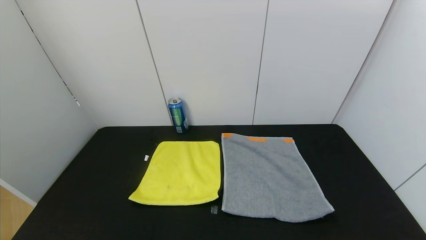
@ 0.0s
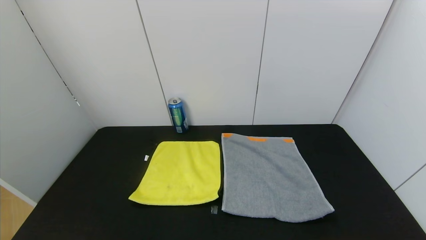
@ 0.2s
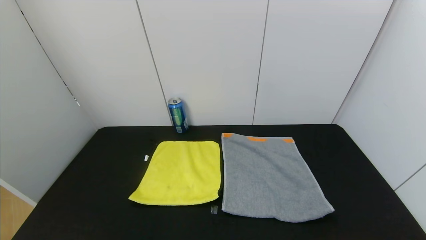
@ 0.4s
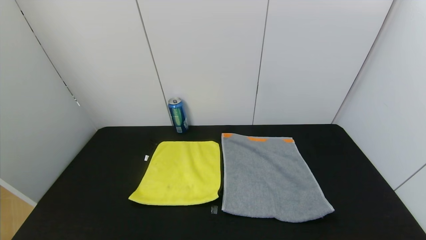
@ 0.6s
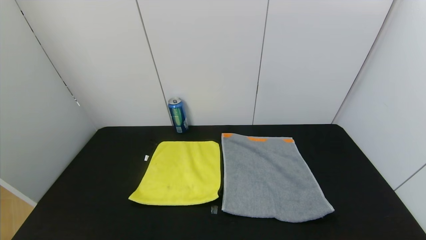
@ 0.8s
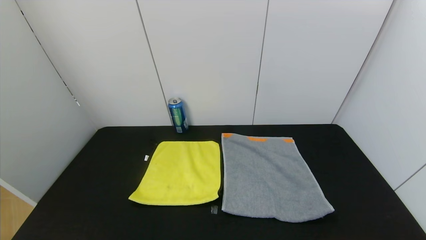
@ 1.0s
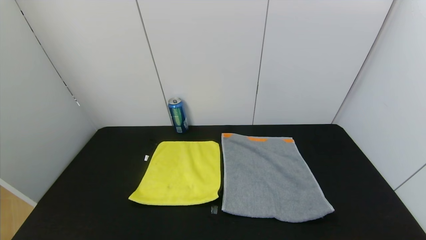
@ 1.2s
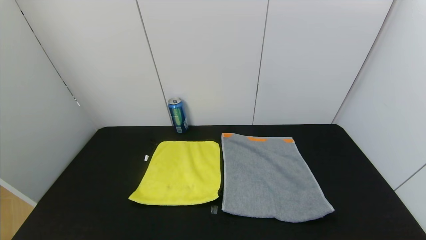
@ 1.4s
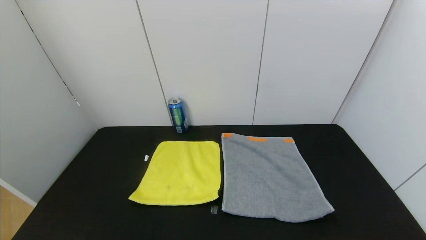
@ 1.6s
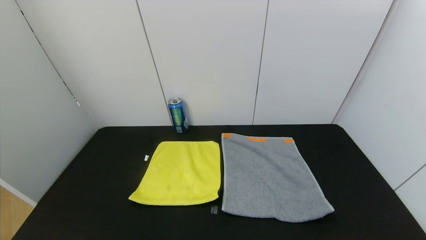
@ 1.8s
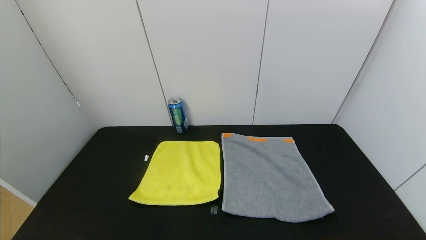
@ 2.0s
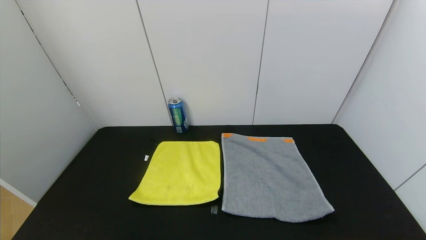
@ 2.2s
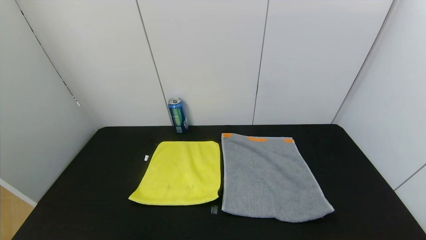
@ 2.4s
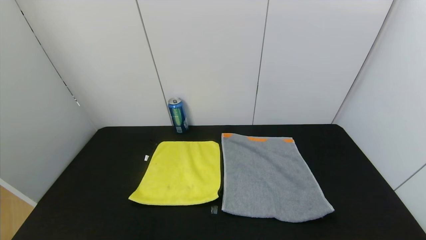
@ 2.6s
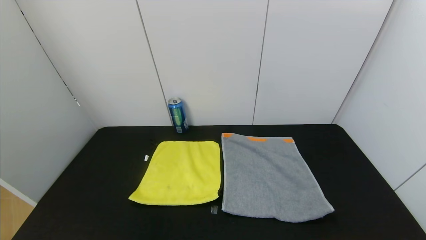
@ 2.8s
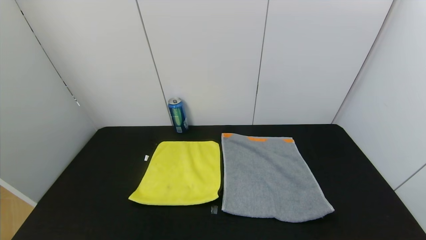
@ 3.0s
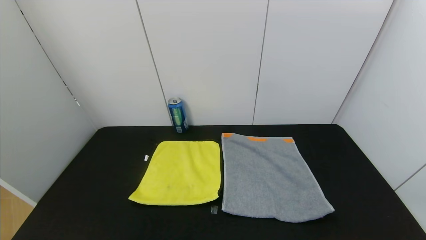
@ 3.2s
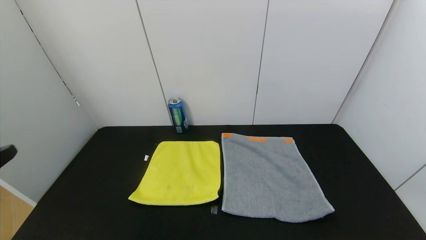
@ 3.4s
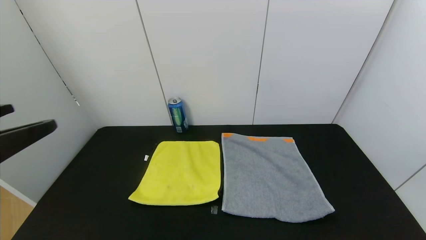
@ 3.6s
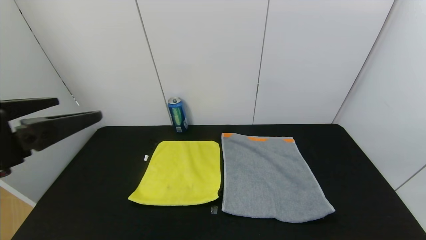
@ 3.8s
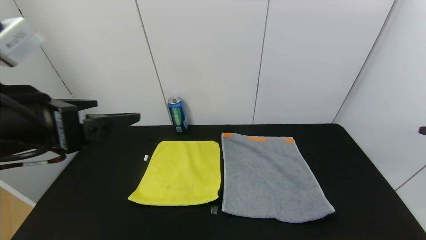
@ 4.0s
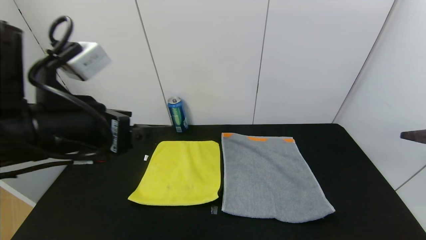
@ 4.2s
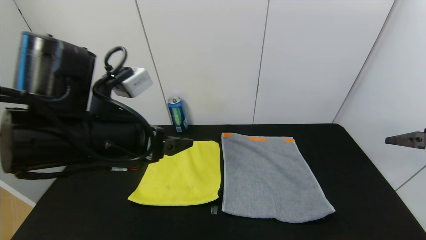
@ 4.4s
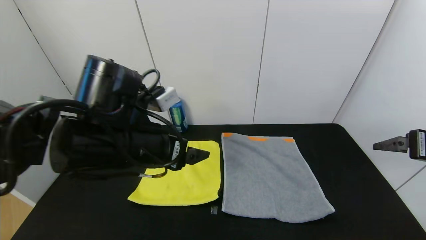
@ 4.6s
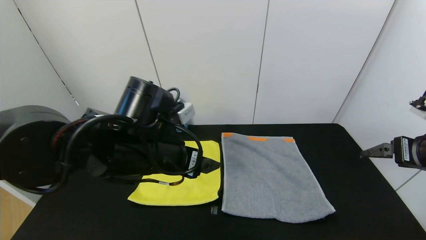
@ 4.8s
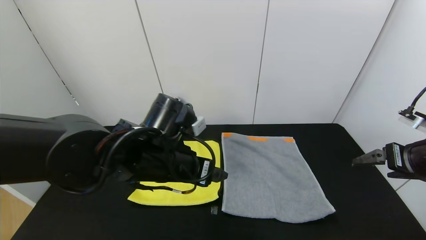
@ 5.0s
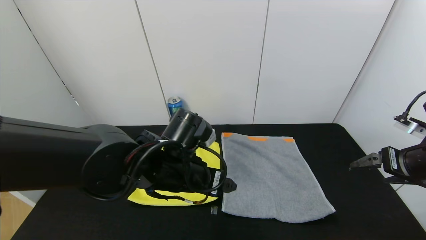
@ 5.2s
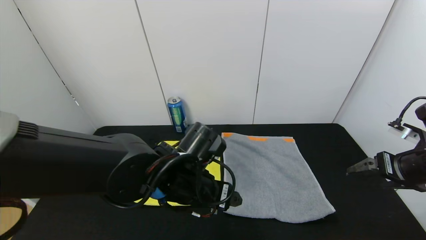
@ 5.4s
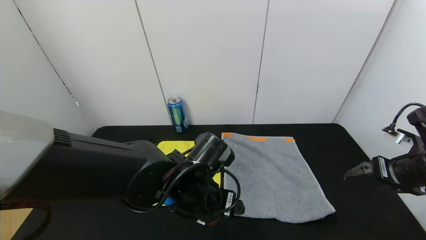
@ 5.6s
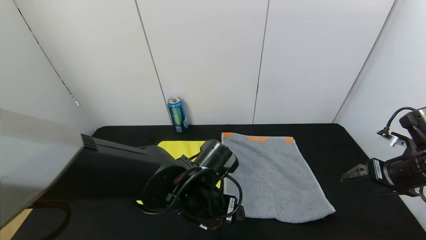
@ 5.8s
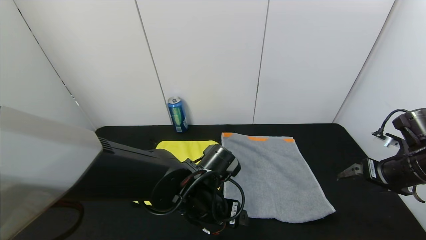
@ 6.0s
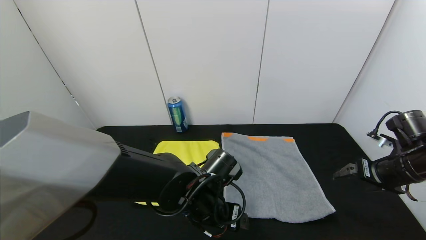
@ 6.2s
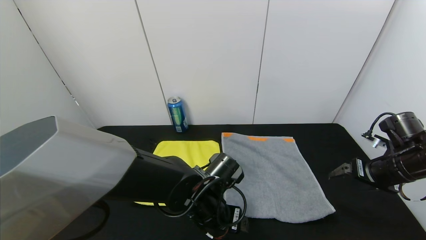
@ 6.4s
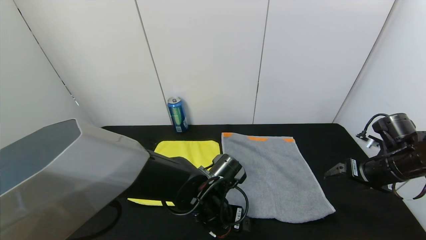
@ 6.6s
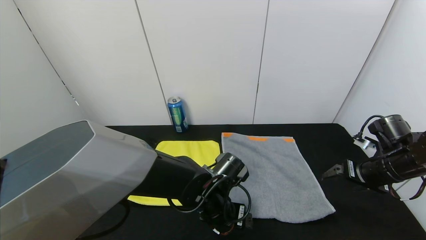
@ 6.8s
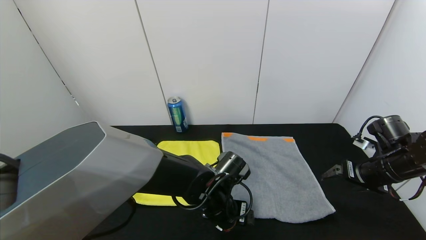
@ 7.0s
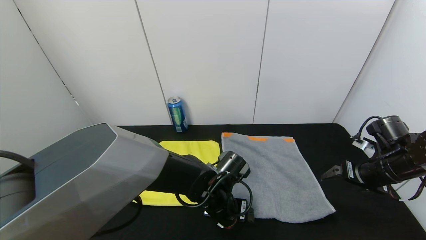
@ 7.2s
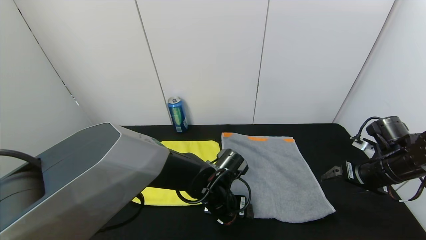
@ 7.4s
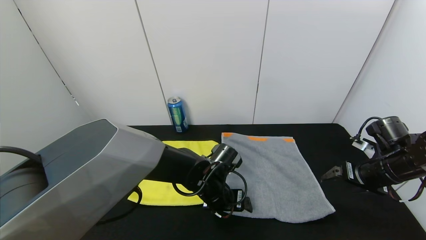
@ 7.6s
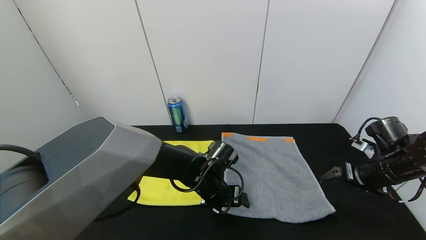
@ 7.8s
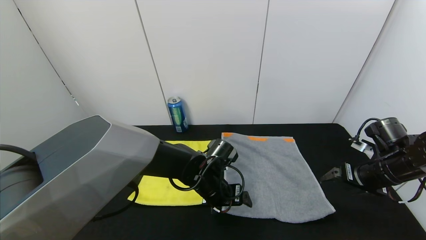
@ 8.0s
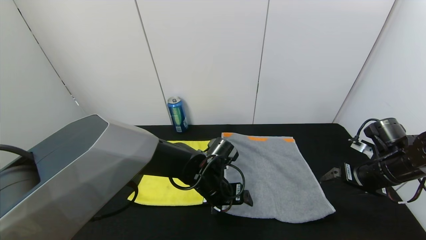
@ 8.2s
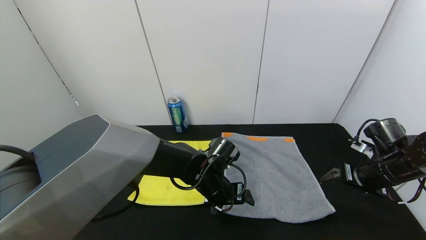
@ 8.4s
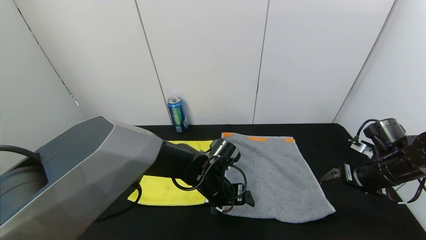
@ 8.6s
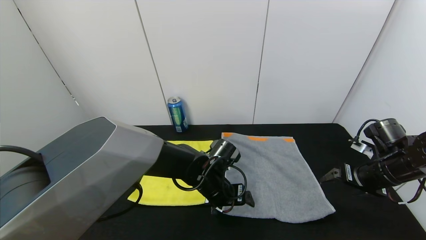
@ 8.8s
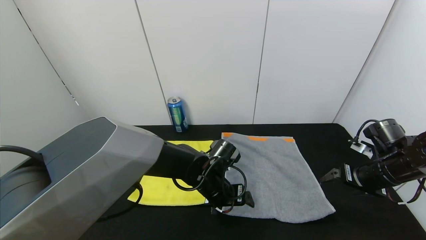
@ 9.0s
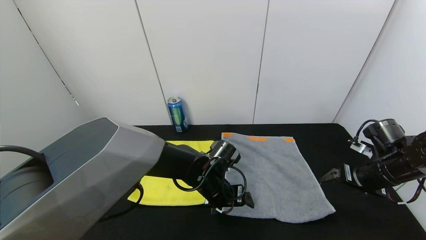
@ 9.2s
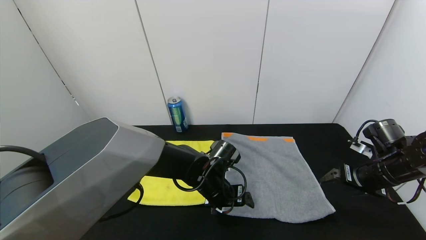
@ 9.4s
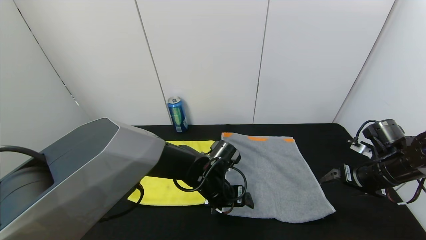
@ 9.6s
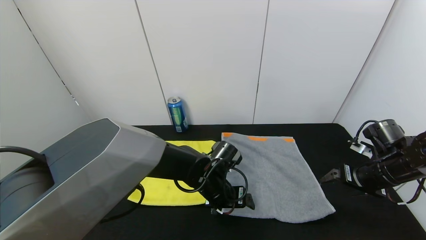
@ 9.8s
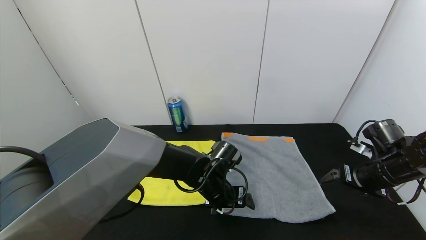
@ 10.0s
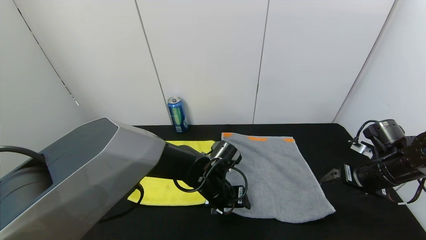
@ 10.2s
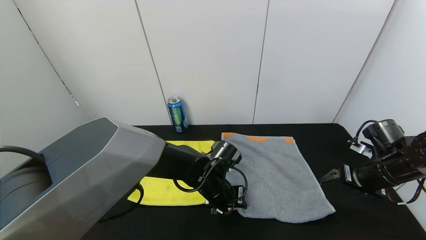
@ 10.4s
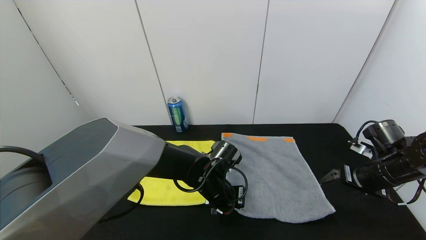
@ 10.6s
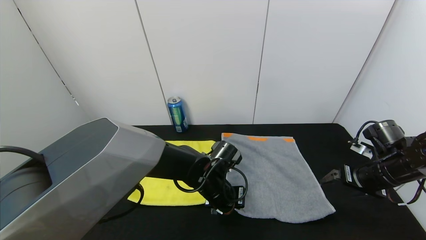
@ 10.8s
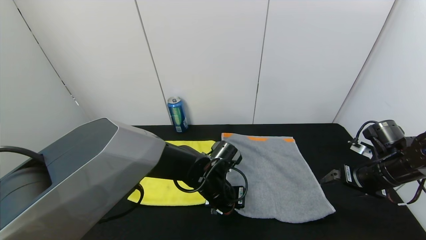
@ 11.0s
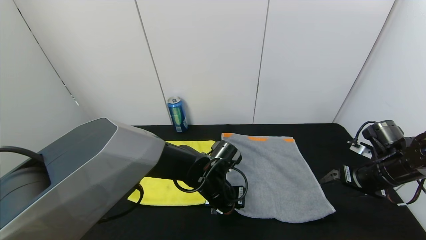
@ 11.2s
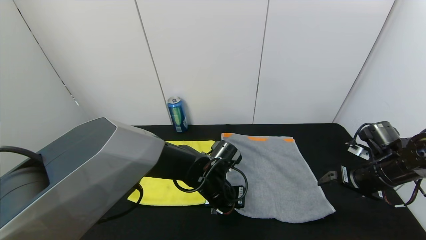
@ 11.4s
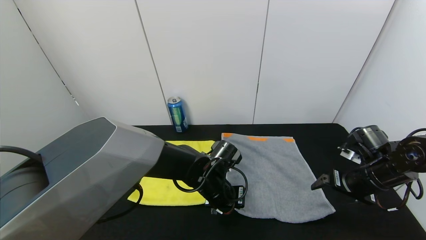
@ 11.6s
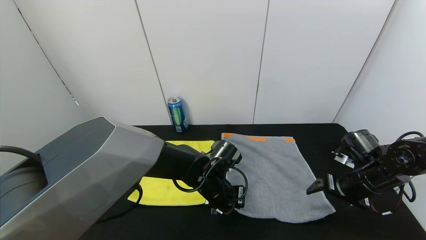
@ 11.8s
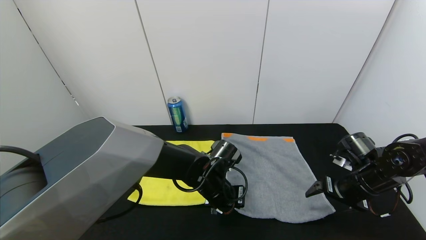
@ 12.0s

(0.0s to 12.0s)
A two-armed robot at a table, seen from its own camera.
Task of the whole recording: Use the gripper to fold the yellow towel and grey towel in half twice,then put the yellow towel on the grey towel.
0.0s - 1.6s: Both grippers stay about where they are.
3.0s - 4.4s: The right gripper is displaced forward by roughly 20 cm, while the left gripper moves forward and to the right, some 25 cm.
4.4s - 6.0s: The right gripper goes some 15 cm downward and forward. Meanwhile the left gripper heads downward and to the right, covering about 20 cm.
6.0s - 7.6s: The left gripper travels forward by approximately 5 cm.
7.6s - 9.0s: The two grippers keep their place.
9.0s - 10.4s: The left gripper closes.
10.4s - 12.0s: The left gripper closes.

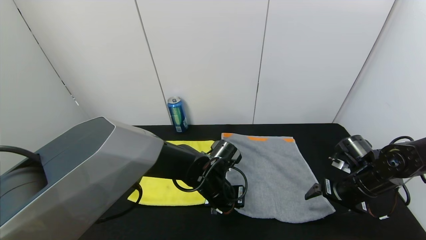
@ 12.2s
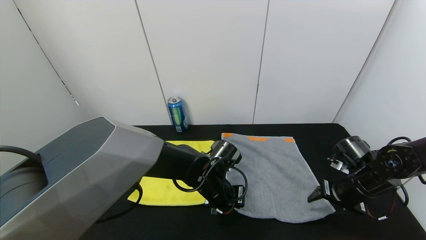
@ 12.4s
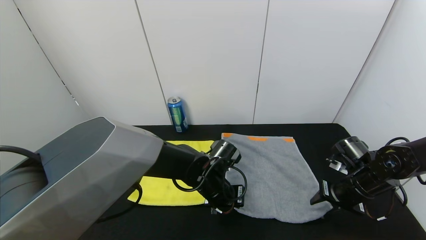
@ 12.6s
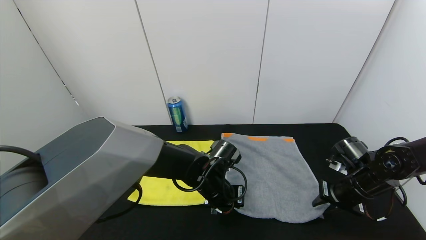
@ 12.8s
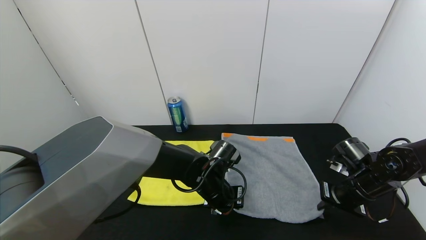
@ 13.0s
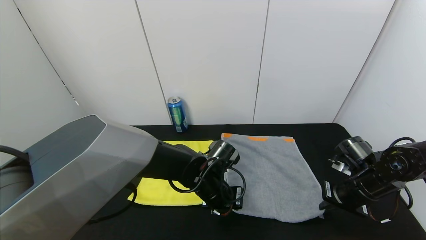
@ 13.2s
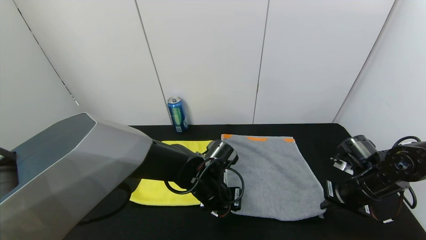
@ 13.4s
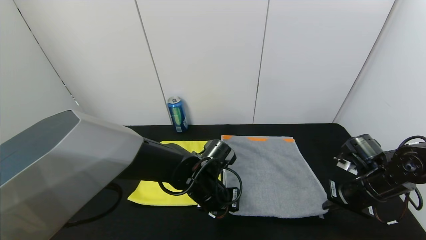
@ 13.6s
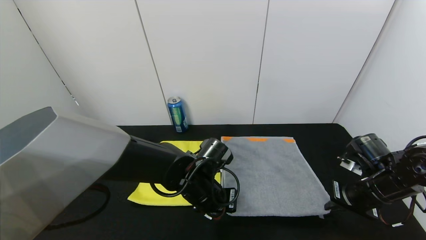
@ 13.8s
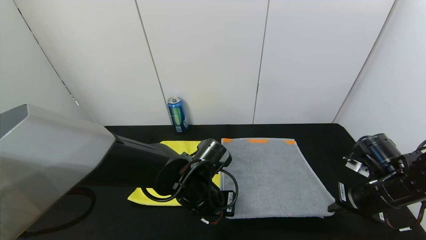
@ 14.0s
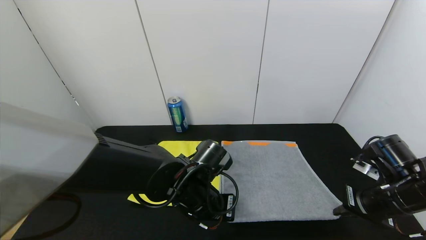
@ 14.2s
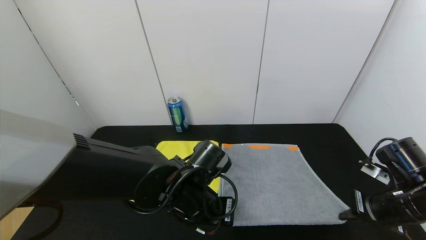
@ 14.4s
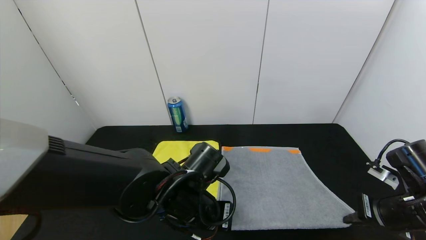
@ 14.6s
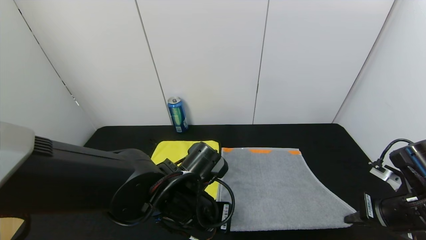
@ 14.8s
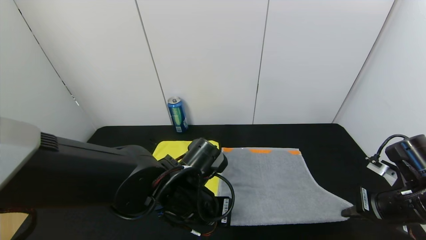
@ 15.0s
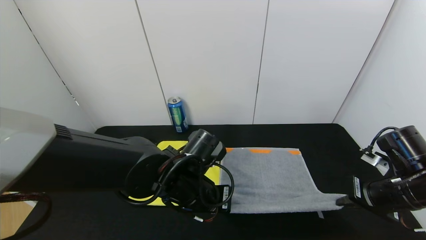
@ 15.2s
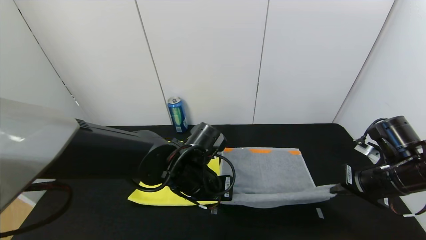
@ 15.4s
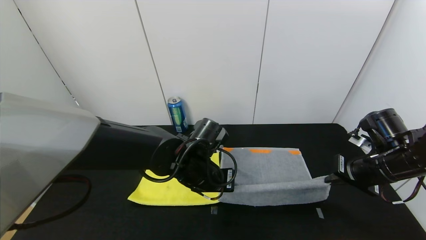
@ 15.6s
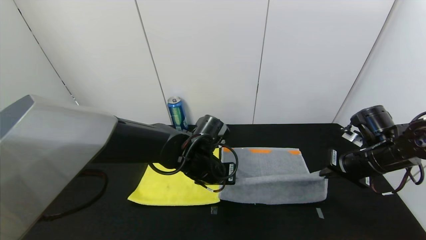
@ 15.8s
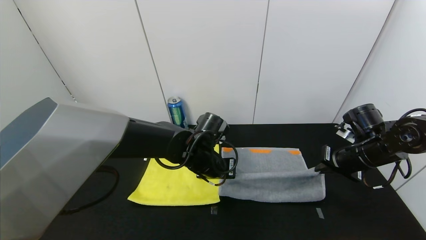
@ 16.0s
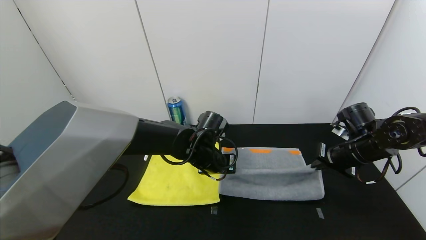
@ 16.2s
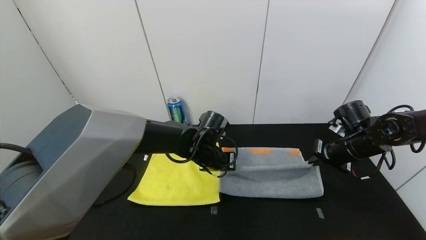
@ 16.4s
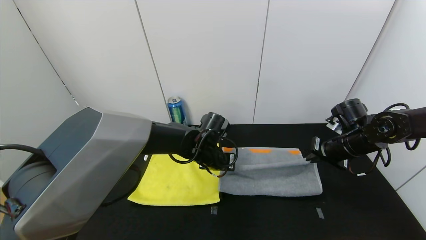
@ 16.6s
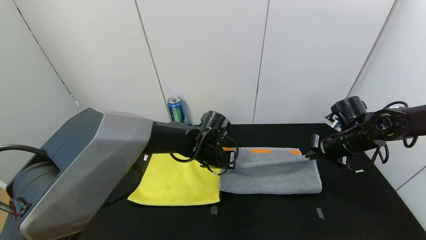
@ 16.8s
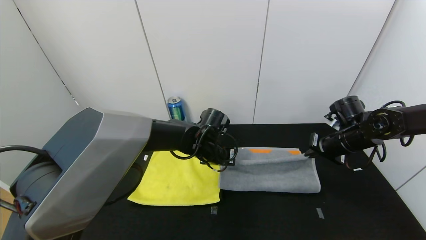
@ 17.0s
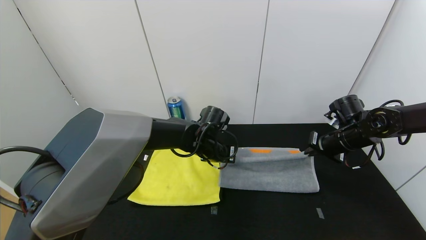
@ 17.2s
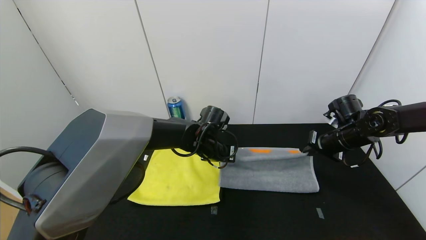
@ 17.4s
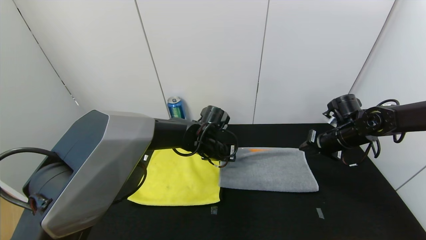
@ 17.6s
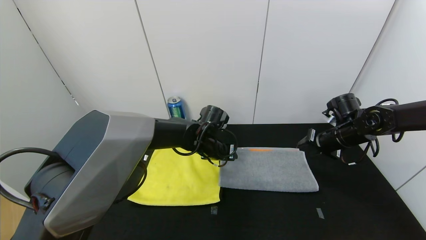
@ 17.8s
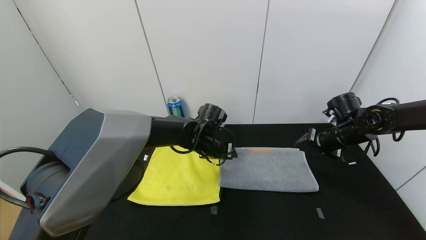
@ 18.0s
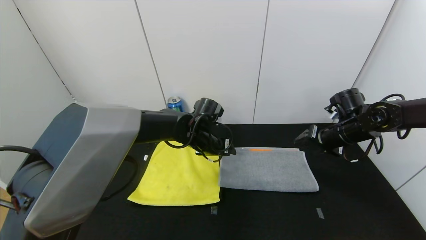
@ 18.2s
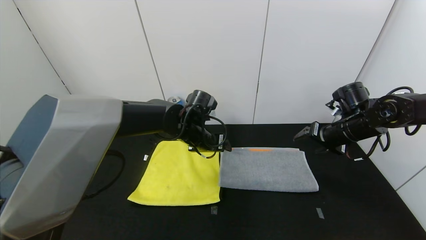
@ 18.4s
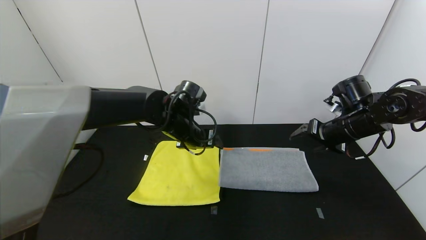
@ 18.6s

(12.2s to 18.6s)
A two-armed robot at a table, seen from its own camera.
Task of the whole recording: Use the gripper to fold the yellow towel and grey towel in half twice,then put the yellow towel on the grey towel.
Step, 12.2s - 18.2s: Fold the gray towel upwards with the left gripper.
Step, 12.2s - 18.2s: Fold the gray towel upwards with the right gripper.
12.2s - 13.8s: The right gripper closes.
15.4s - 17.0s: The two grippers go approximately 10 cm forward.
17.0s - 18.6s: The left gripper moves upward and to the left, approximately 10 cm, and opens its fingers. The right gripper goes approximately 5 cm upward, and opens.
